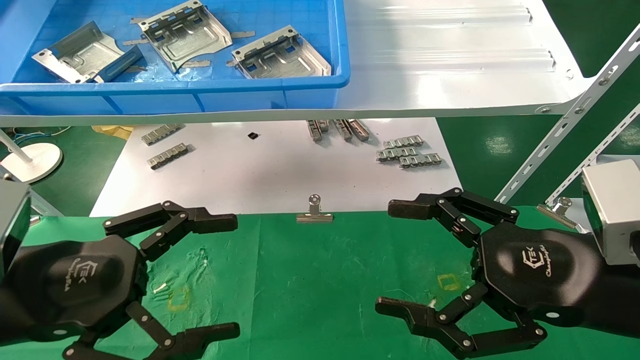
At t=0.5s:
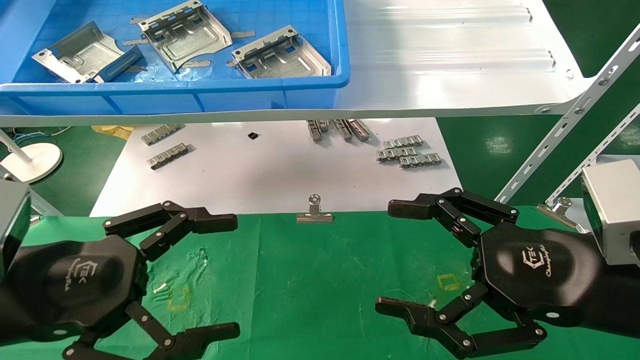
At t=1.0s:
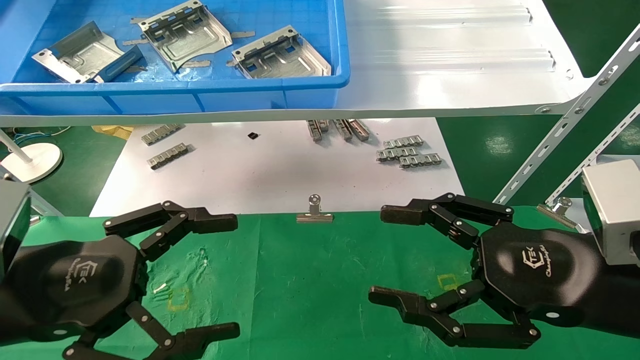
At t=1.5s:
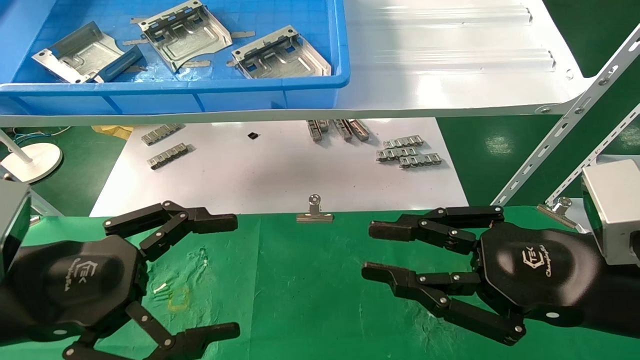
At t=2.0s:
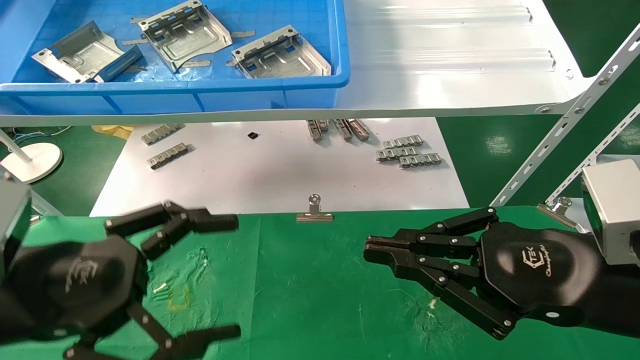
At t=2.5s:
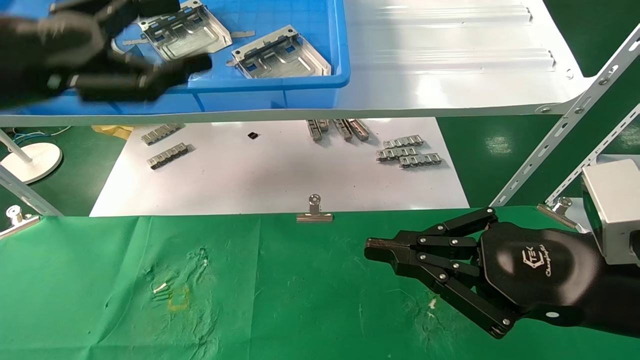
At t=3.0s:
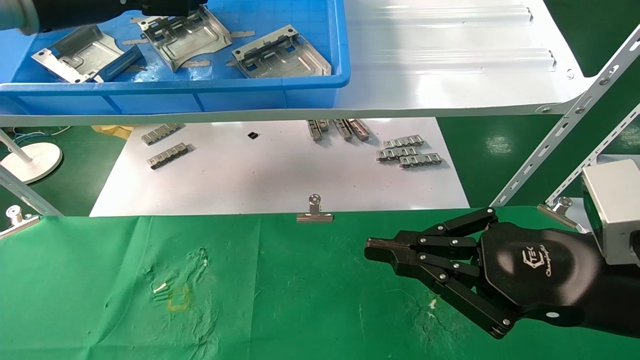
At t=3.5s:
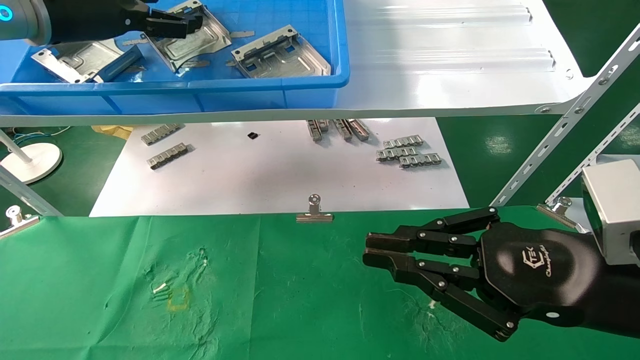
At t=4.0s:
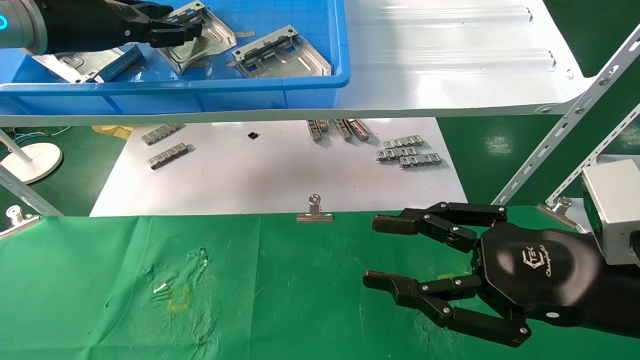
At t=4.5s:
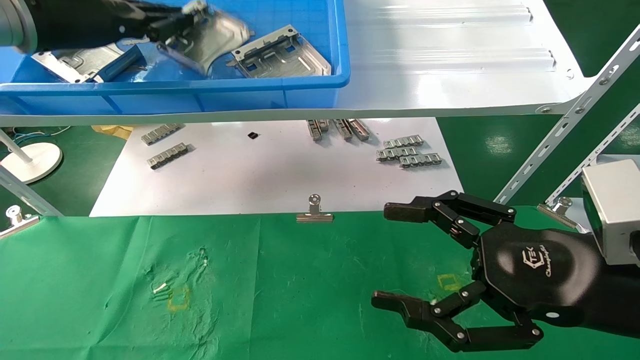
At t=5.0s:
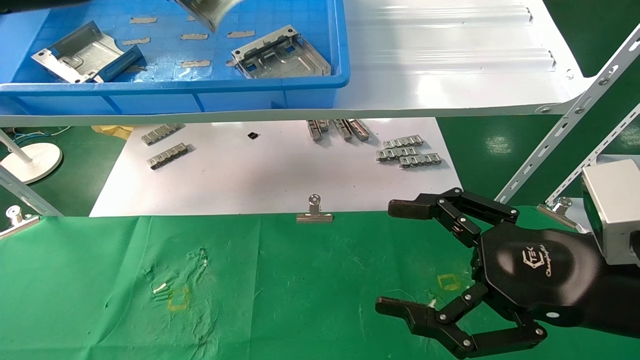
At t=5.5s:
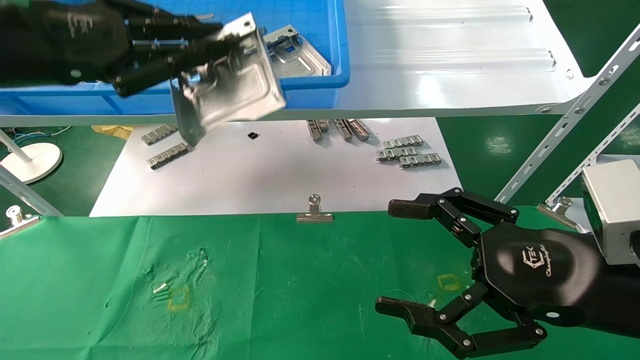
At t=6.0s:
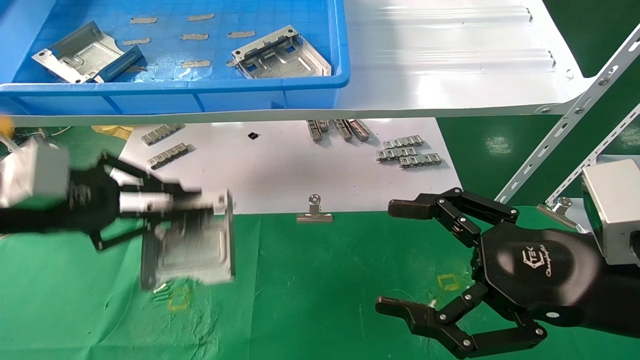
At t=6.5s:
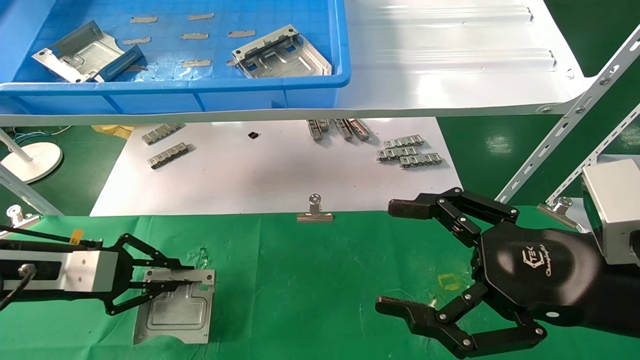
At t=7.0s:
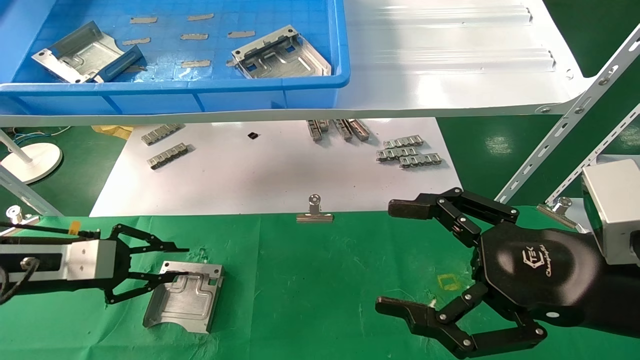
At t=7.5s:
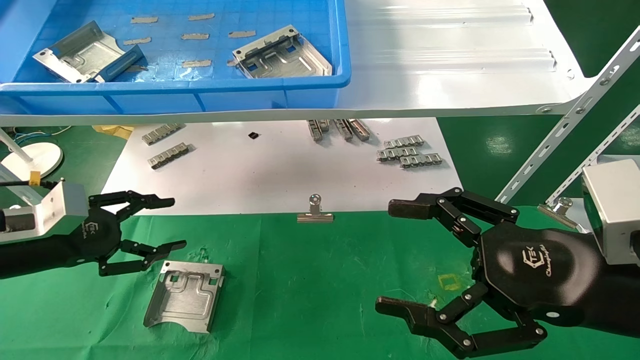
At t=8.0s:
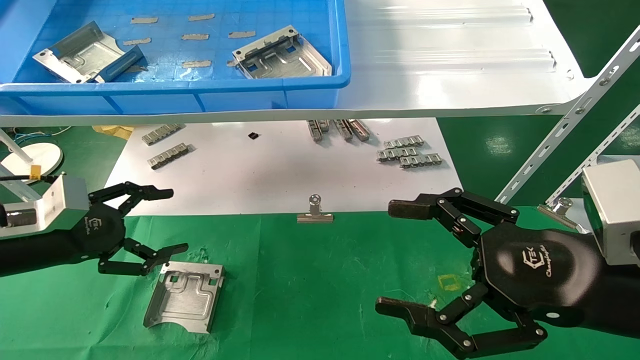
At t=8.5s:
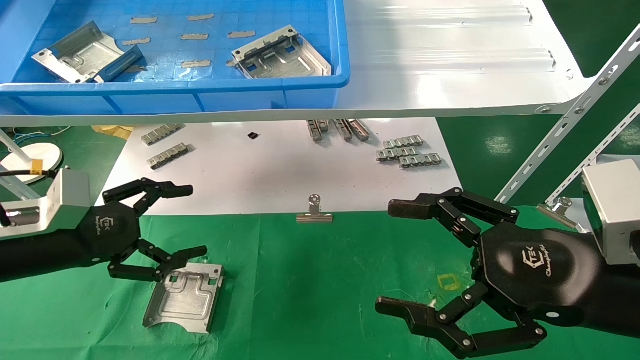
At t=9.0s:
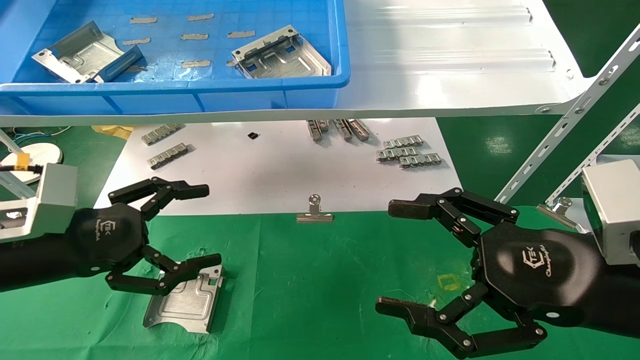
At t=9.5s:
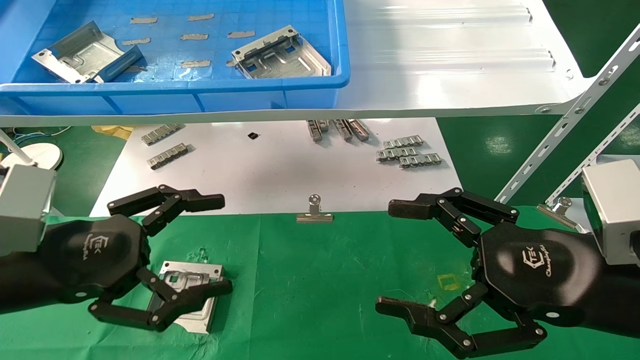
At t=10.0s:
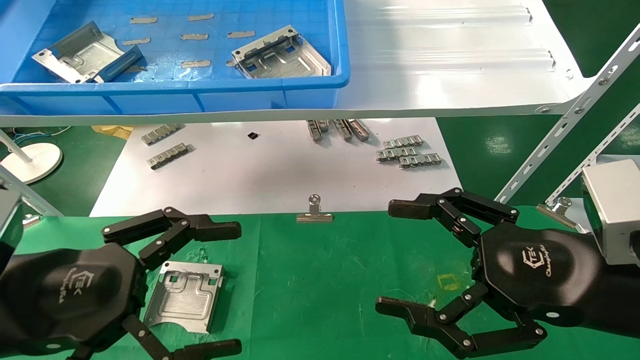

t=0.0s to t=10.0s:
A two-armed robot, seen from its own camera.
Task of the whole recording: use the mechanical arm to pick up the parts and place them on the table.
Step, t=2.5s to t=4.5s: Pick up the hard drive bracket from the feeding area.
Step, t=5.0s to t=7.5s: Place the hard drive bracket into the box.
t=0.0s to t=2.0s: The right gripper closes.
t=2.0s to t=4.0s: The left gripper is displaced forward and upward by about 30 cm, and closes.
t=4.0s to t=6.0s: The left gripper is displaced downward and backward by approximately 20 cm, and closes. Meanwhile the right gripper opens up.
t=6.0s to t=8.0s: The left gripper shifts roughly 10 cm downward, and opens its fingers.
t=8.0s to t=10.0s: The left gripper travels backward and to the right by about 15 cm.

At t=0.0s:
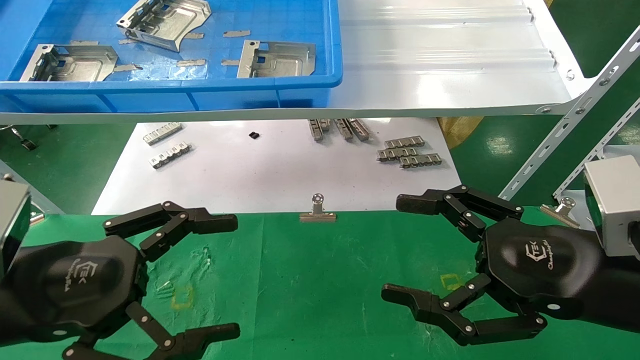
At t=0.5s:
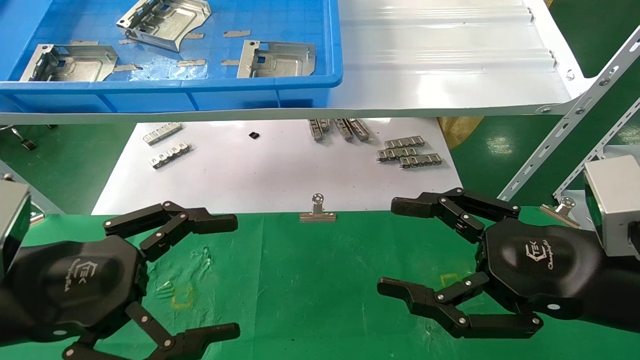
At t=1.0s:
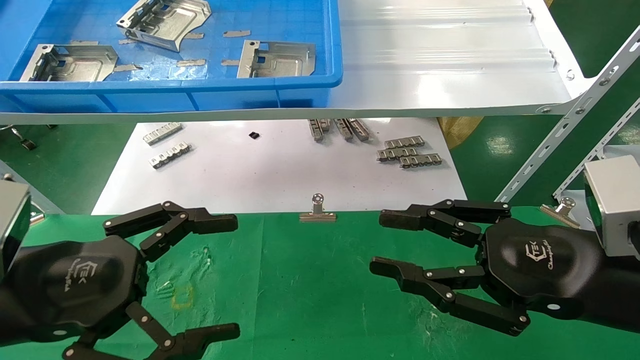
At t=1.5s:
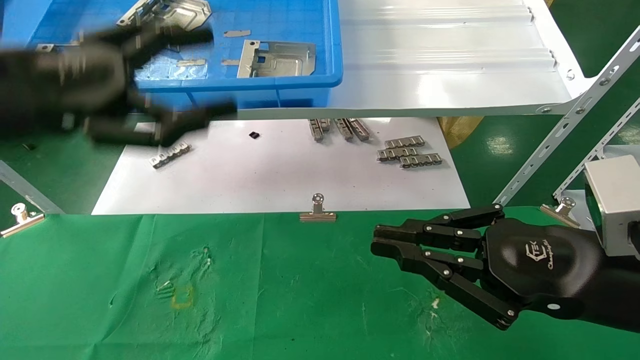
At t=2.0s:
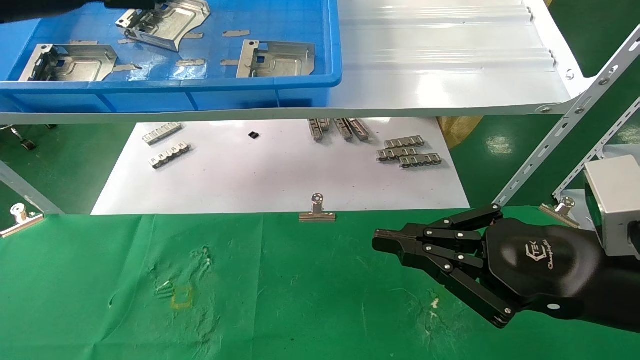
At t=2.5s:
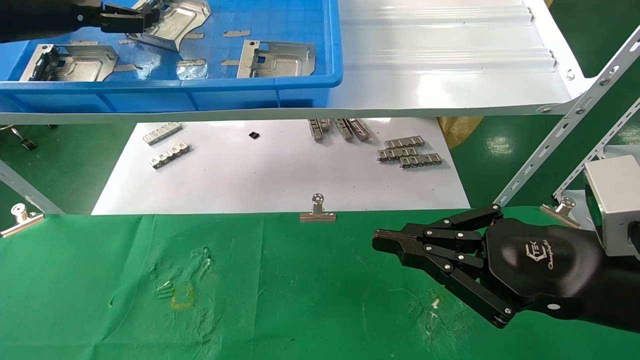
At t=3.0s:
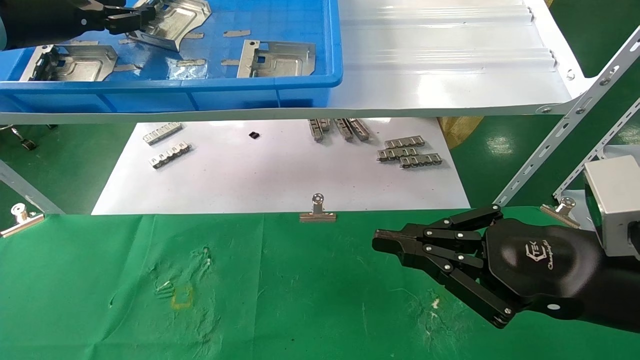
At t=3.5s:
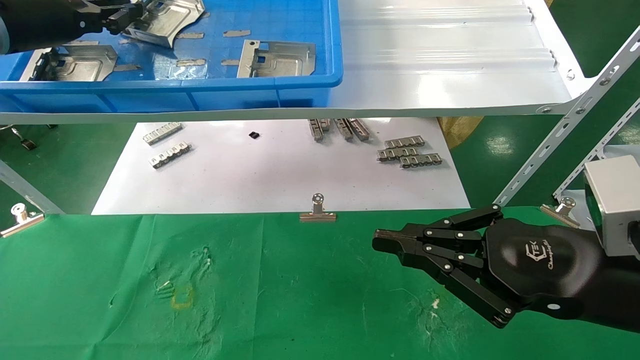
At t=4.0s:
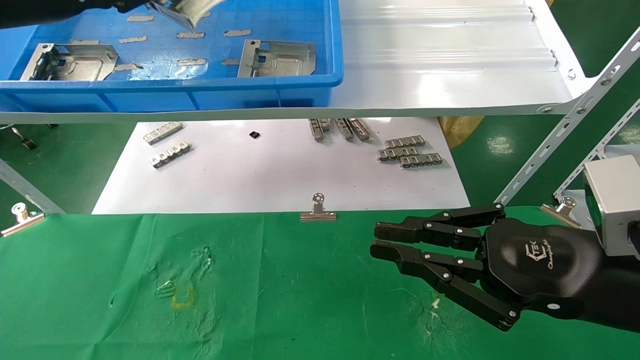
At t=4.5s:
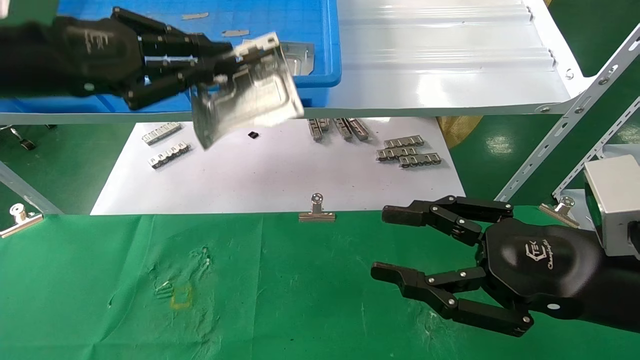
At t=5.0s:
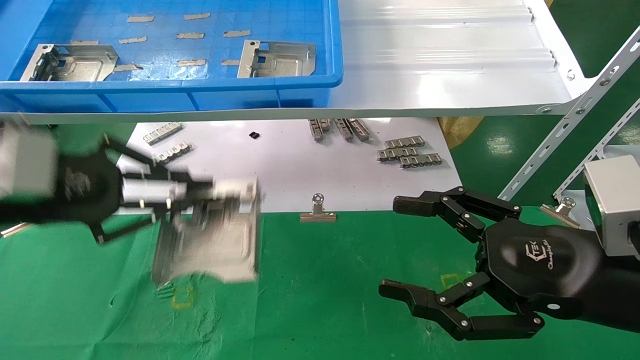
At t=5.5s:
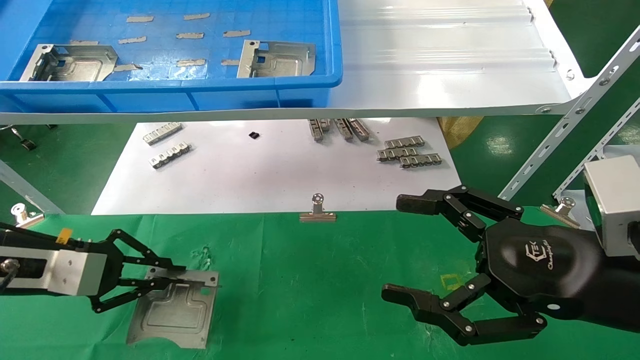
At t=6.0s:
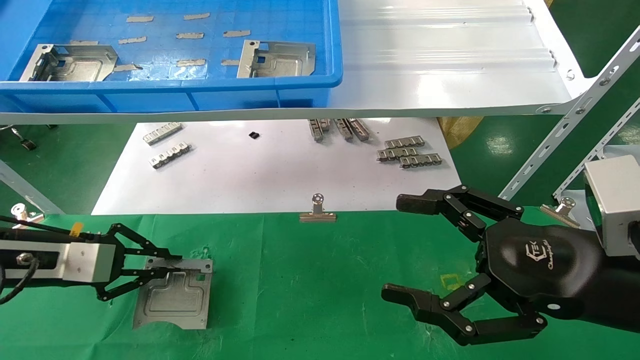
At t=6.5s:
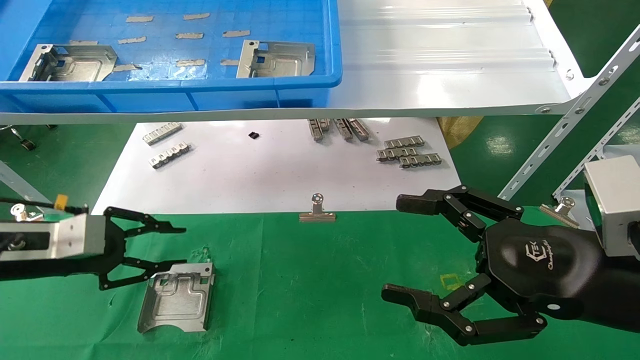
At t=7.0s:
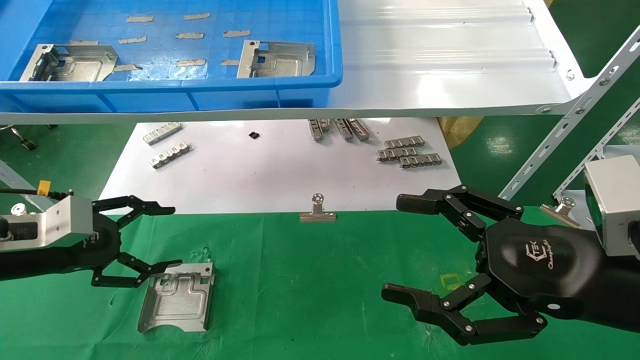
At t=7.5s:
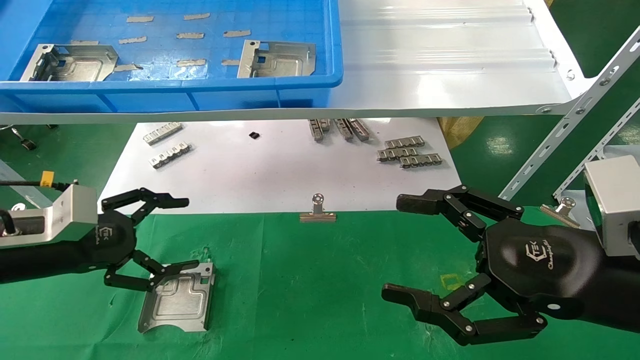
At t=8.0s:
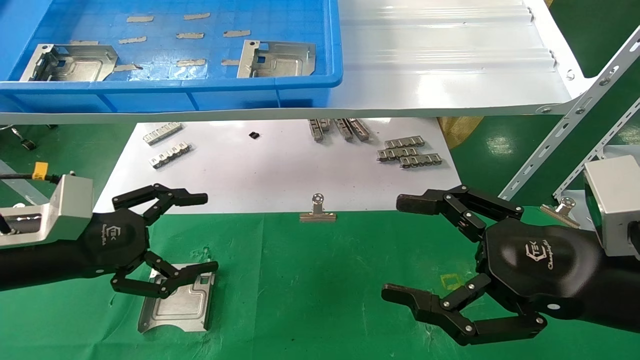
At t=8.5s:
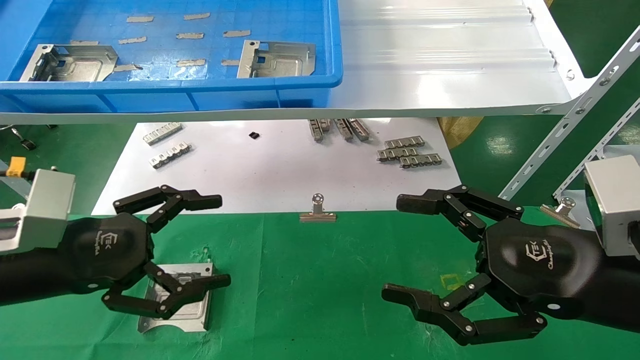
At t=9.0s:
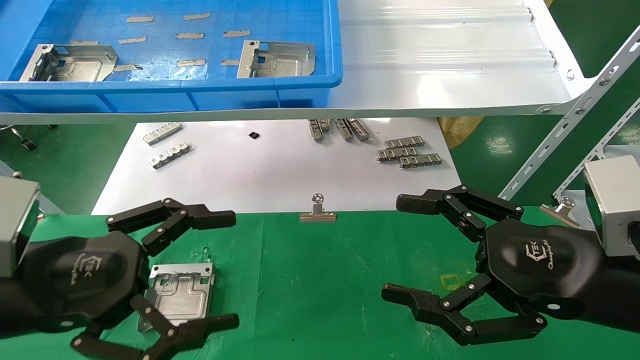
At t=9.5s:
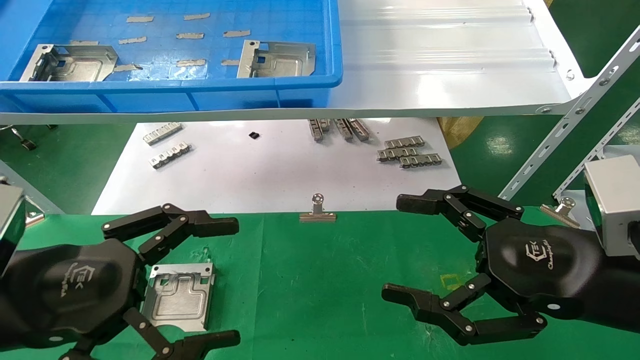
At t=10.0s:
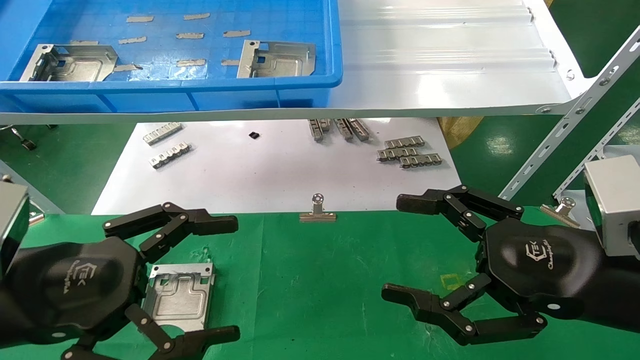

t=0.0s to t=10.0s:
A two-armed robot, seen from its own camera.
Task of the whole recording: use the mechanical arm to pick up the parts and place them on the table.
Step, t=1.5s to t=3.0s: Pick up the hard drive bracket from the feeding area.
Step, t=3.5s to t=6.0s: Place the hard drive bracket into the box.
t=0.0s to t=2.0s: The left gripper moves upward and forward, about 30 cm, while the right gripper closes its fingers.
t=2.0s to t=4.0s: The left gripper closes up.
t=4.0s to t=6.0s: The right gripper opens its fingers. Meanwhile the left gripper is displaced downward by some 25 cm.
t=6.0s to t=8.0s: The left gripper moves to the right, about 5 cm, and opens up.
t=8.0s to t=10.0s: The left gripper heads backward and to the right, covering some 10 cm.
